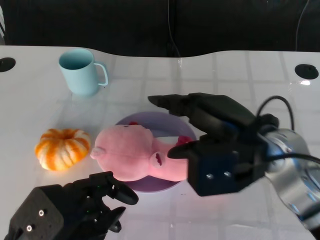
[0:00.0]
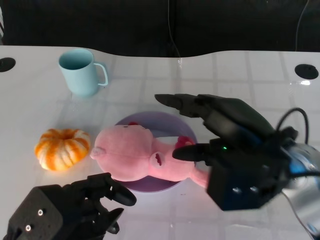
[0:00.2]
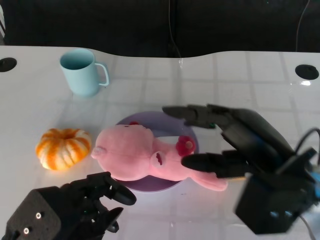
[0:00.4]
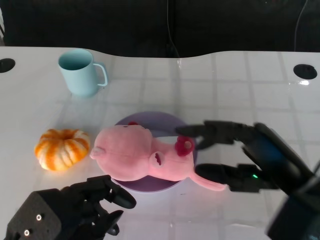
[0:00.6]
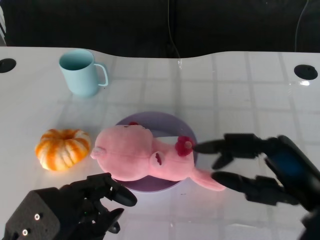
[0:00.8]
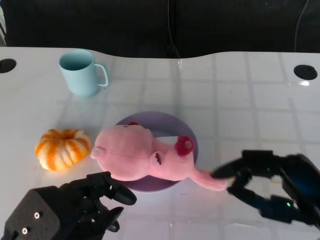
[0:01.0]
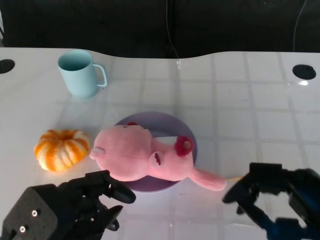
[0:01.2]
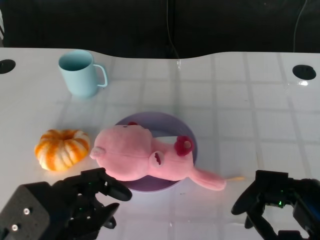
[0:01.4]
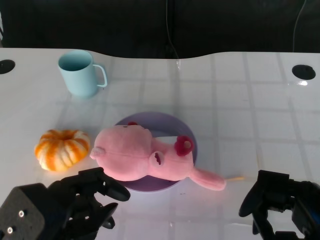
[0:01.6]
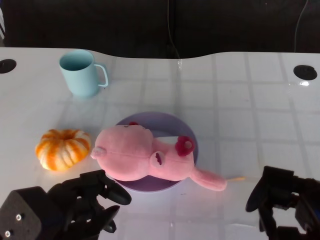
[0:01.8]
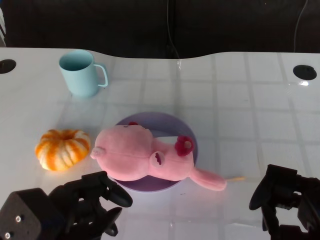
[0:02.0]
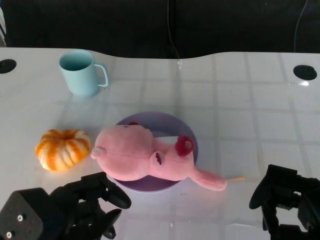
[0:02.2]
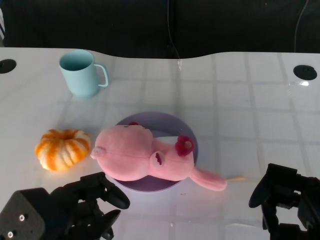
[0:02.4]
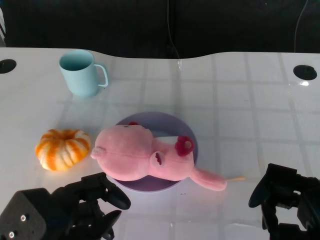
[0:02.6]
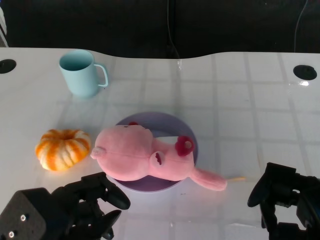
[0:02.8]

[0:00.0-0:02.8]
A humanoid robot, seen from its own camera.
Task of the whole recording: Pick up the doll on the other side of the plate and place it into the plate.
0:00.0 to 0:01.4: The right hand travels backward and to the right by roughly 15 cm.
0:01.4 to 0:02.8: The hands make only small movements.

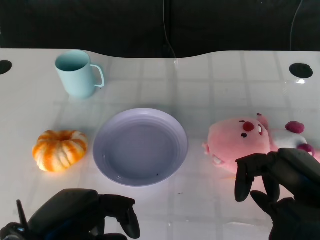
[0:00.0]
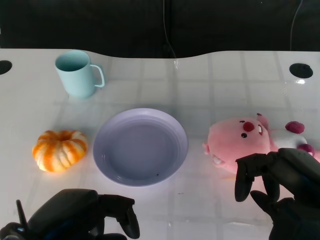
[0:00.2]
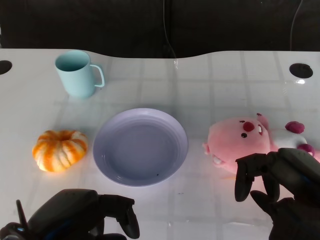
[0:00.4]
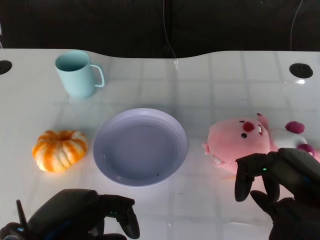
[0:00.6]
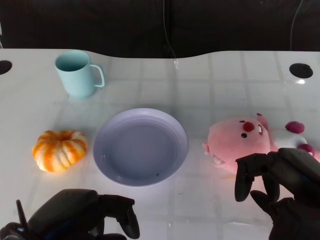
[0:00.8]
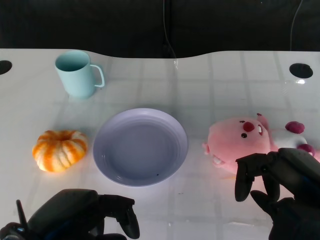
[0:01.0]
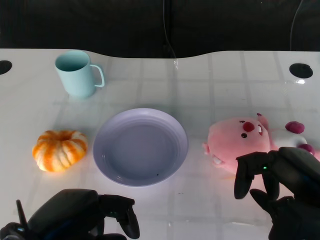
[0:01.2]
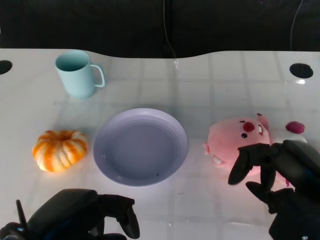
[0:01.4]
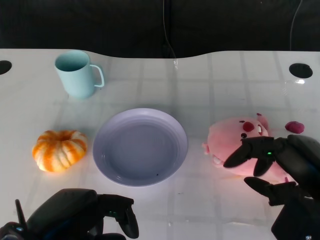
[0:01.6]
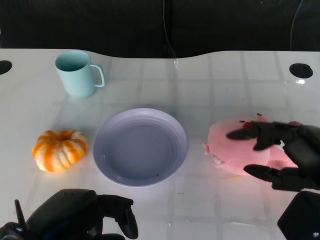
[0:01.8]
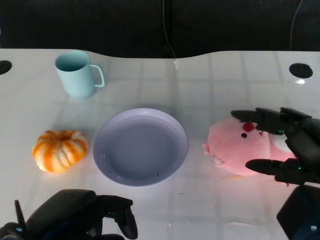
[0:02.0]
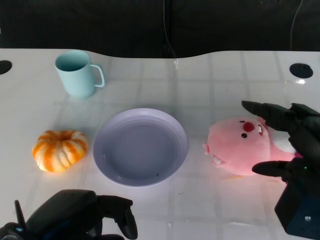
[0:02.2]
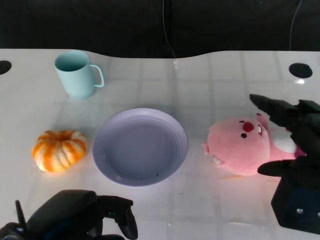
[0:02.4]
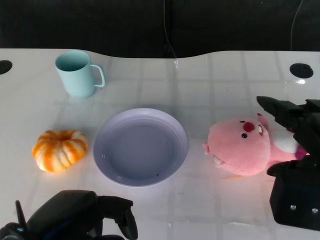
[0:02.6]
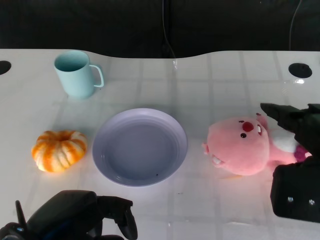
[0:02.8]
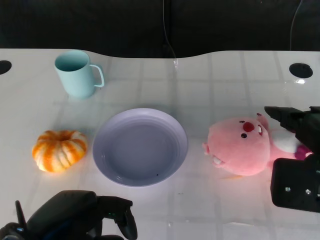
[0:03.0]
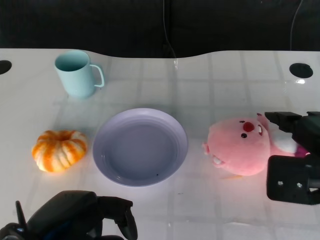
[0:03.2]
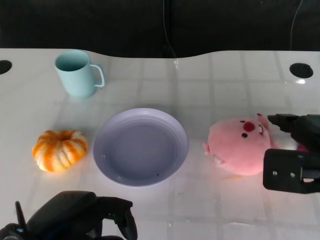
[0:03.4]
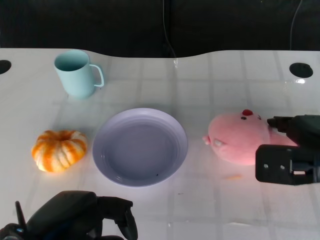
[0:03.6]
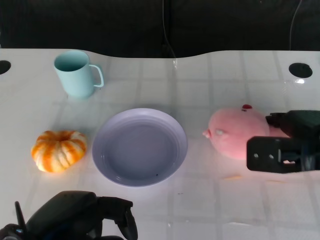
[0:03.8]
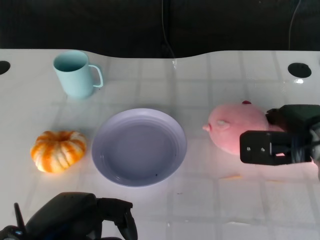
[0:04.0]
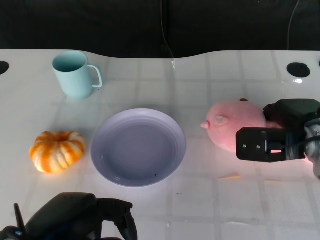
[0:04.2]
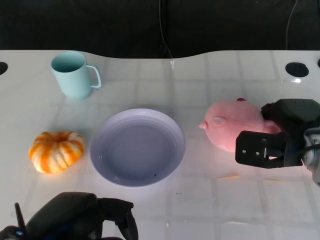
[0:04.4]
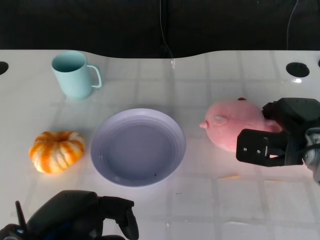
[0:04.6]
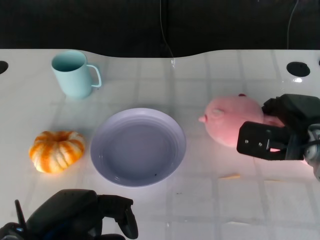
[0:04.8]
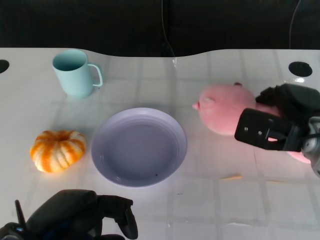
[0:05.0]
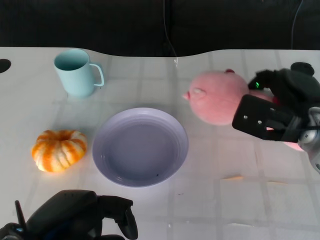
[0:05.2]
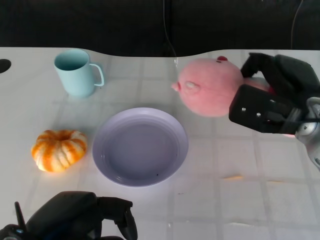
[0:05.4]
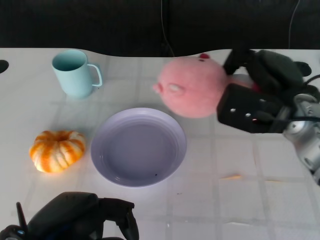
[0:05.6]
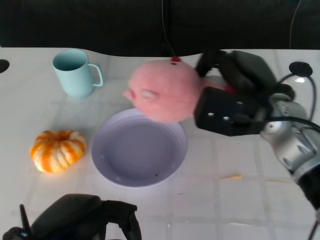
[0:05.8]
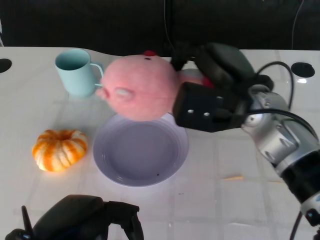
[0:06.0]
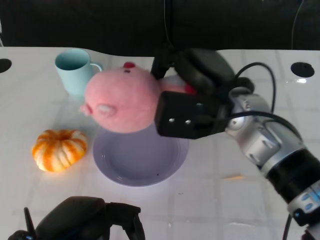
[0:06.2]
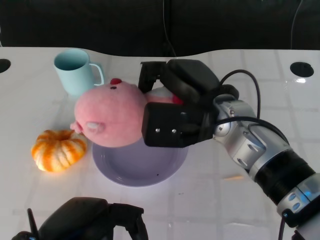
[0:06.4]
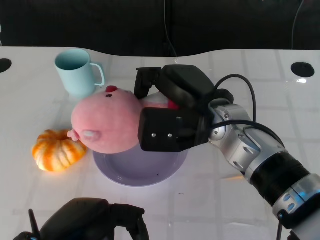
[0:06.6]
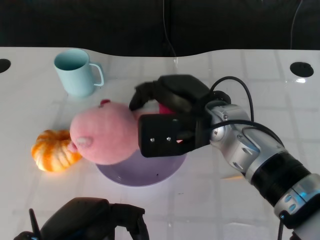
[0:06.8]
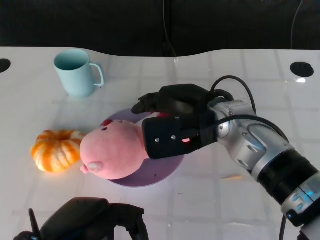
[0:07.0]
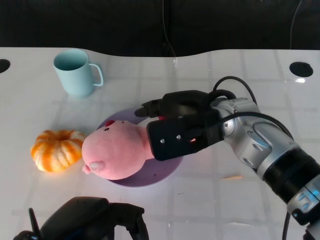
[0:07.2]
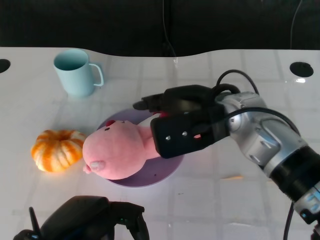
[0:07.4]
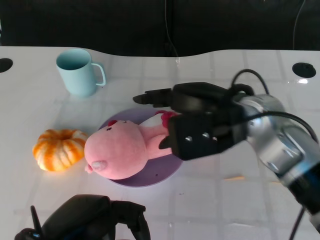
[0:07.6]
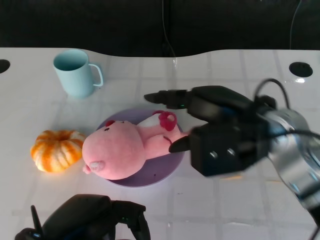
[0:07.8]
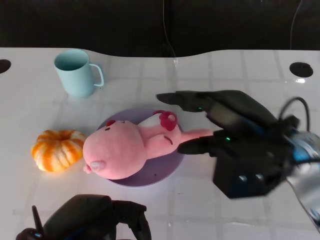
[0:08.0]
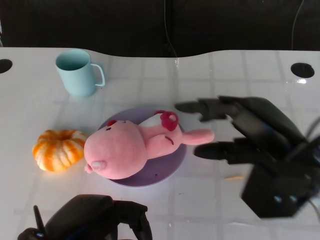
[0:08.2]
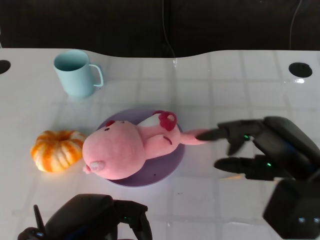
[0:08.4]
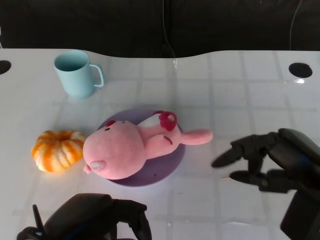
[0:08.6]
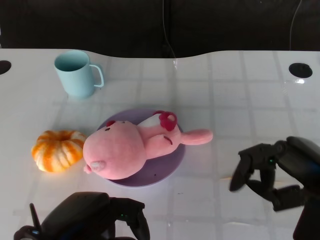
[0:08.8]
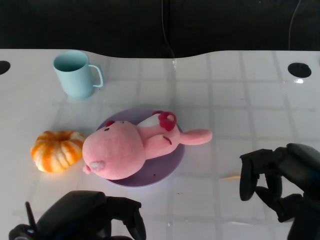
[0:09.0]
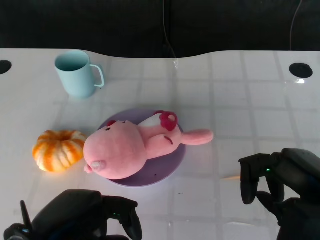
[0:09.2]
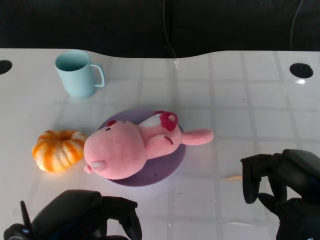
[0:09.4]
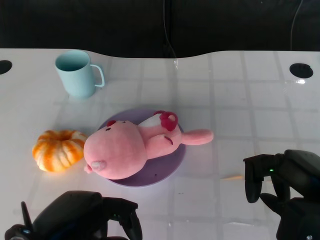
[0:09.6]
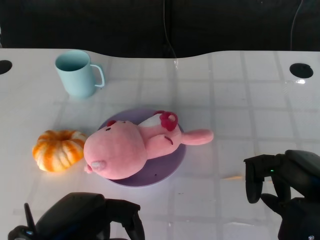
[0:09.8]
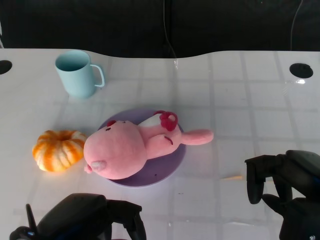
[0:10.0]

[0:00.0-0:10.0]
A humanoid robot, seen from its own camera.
Task of the whole recording: Pick up the doll on the other side of the plate and place it into the plate.
Step, 0:01.0 to 0:05.6: Grasp the pink doll with the right gripper.
Step, 0:05.8 to 0:07.6: Place the pink doll into the plate with the right gripper.
0:01.4 to 0:02.8: The right hand moves approximately 5 cm.
0:02.8 to 0:04.2: The right hand shifts about 15 cm forward and downward.
0:04.2 to 0:05.8: The right hand travels to the left and upward by approximately 10 cm.
0:05.8 to 0:07.2: The right hand shifts about 5 cm to the left.
0:07.2 to 0:08.6: The right hand goes roughly 20 cm to the right and backward.
0:08.6 to 0:10.0: The hands move only a little.

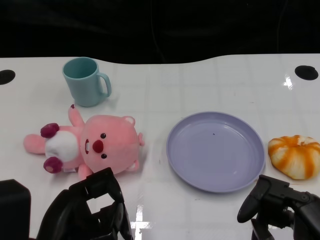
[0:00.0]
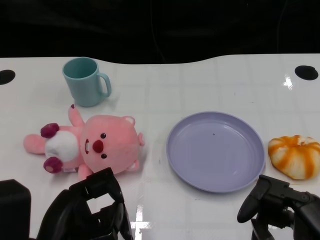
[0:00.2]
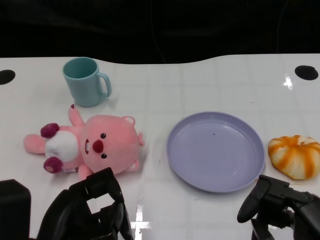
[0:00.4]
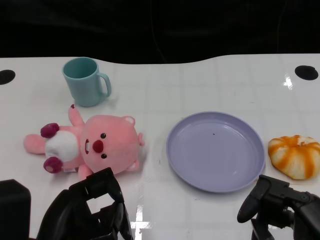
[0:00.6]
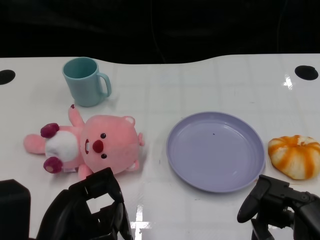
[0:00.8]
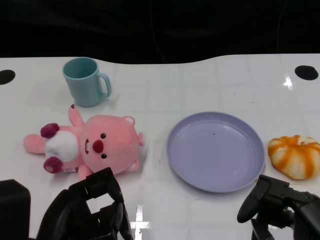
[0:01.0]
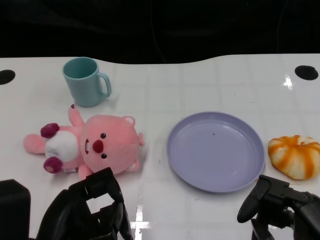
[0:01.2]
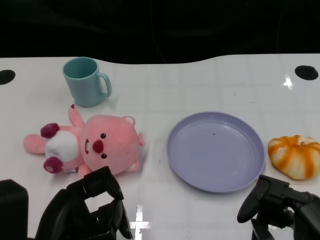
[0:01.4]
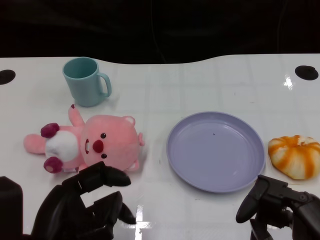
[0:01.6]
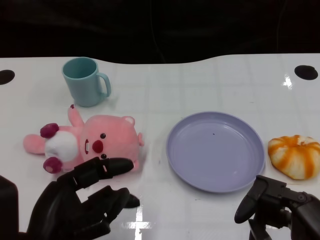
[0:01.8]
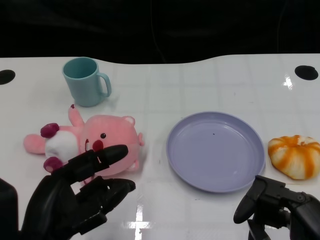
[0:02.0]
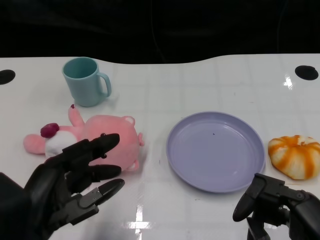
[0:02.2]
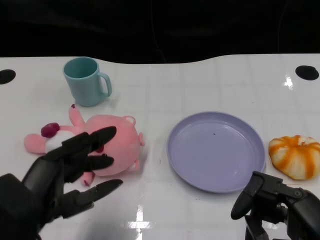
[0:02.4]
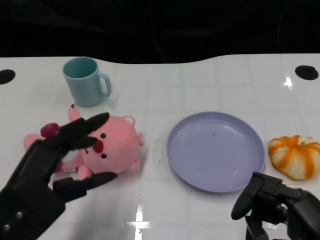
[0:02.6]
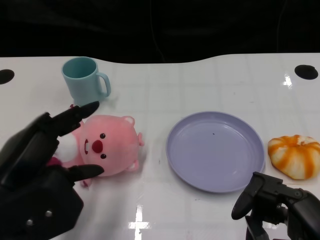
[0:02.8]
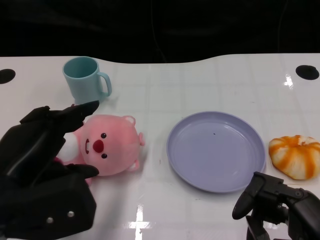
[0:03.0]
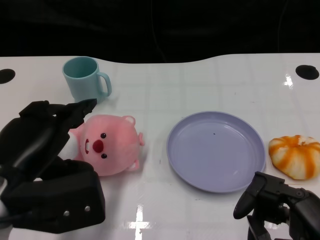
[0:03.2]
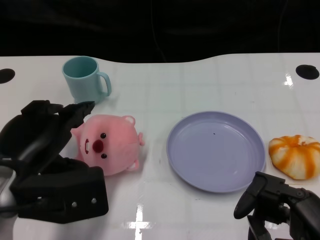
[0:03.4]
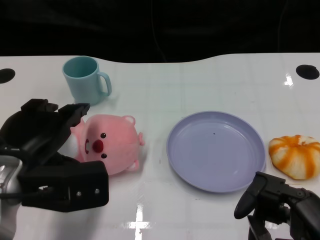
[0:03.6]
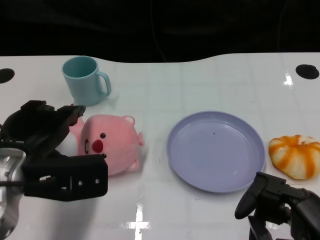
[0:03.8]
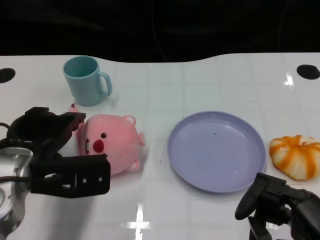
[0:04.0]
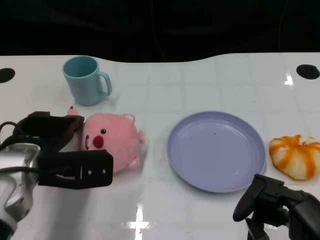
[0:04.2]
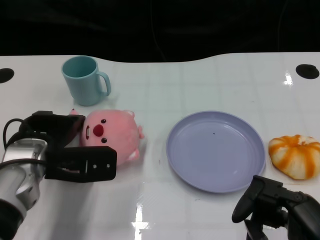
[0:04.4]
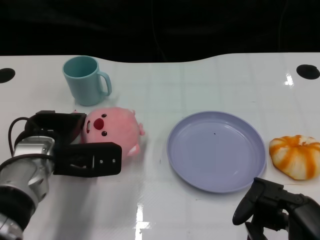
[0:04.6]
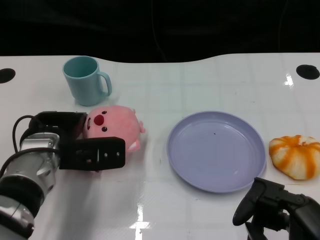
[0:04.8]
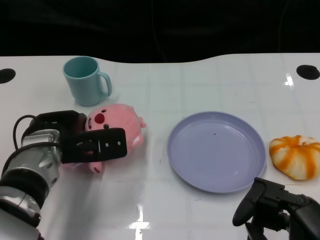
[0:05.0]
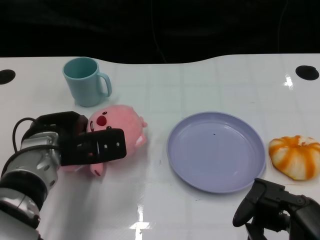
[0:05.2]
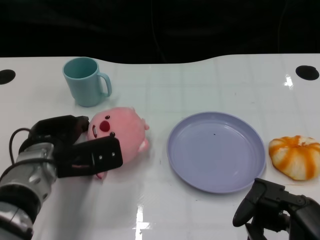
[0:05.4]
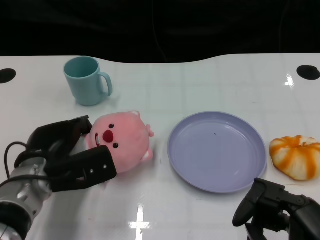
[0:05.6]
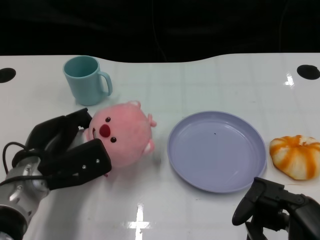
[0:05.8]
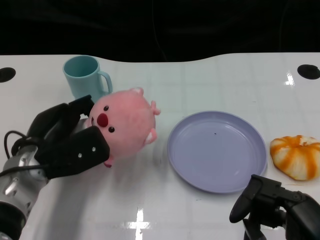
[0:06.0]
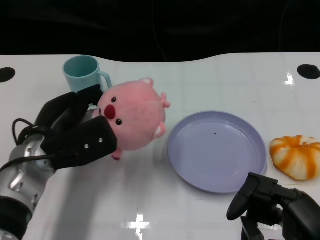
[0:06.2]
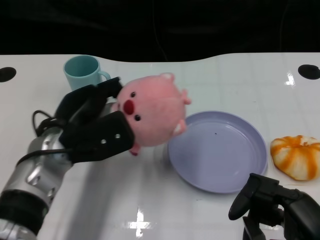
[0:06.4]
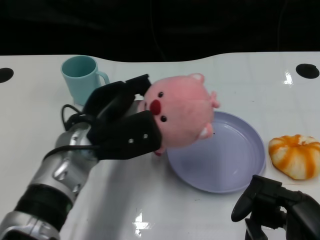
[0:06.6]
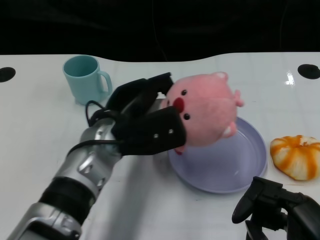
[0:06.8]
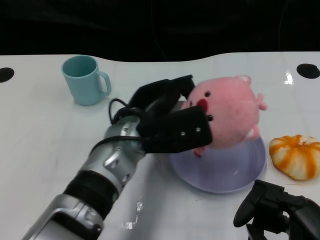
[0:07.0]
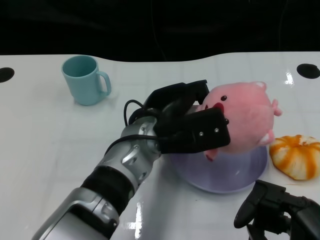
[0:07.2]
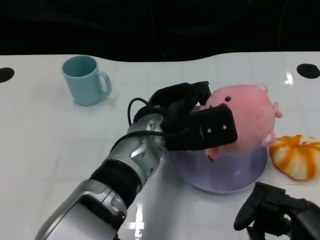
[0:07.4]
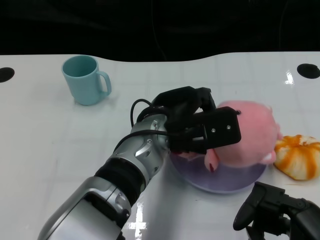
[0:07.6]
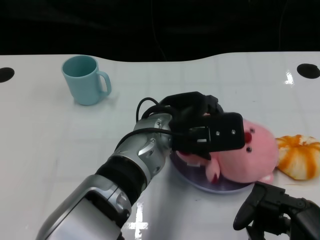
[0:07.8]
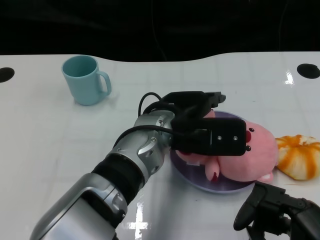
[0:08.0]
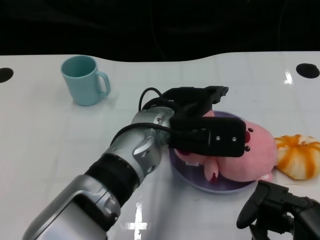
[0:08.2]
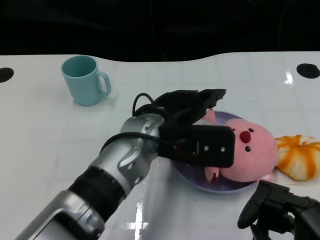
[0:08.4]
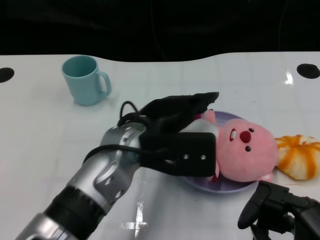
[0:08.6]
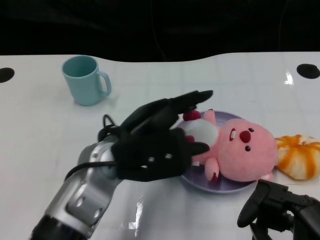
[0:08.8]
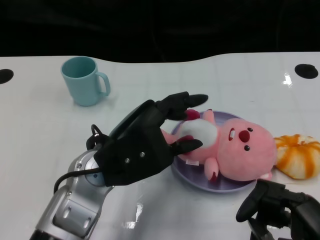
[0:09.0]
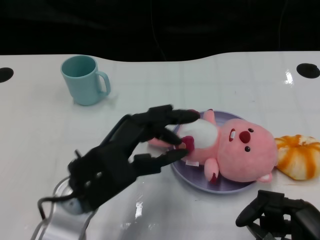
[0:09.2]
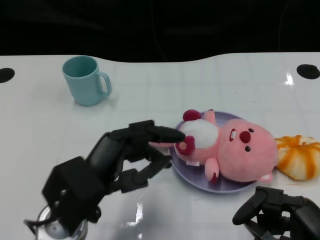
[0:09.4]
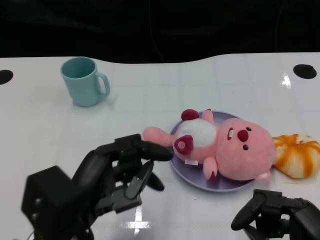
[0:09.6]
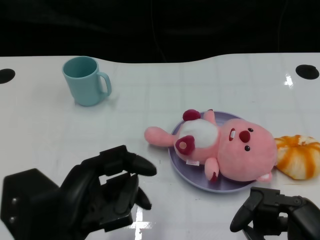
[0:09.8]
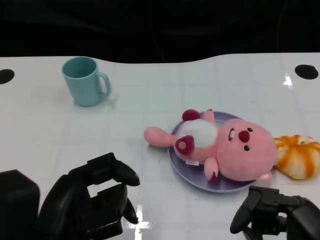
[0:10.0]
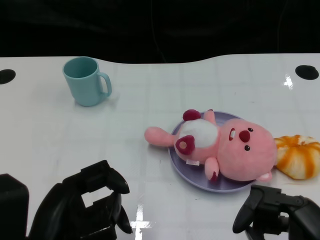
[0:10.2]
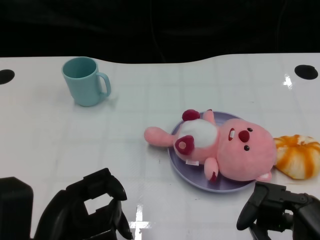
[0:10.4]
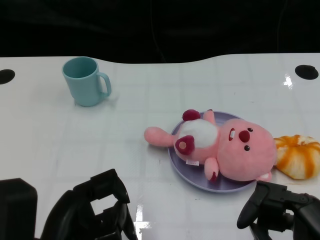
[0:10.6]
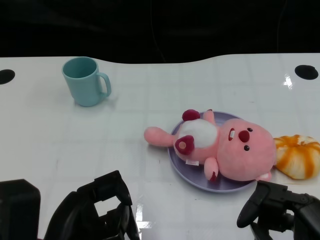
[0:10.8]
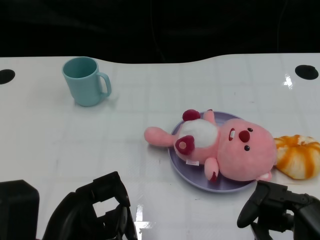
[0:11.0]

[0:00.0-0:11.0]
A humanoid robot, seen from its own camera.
Task of the whole recording: Pick up the doll on one side of the plate and place it into the plate.
Step, 0:01.4 to 0:05.6: Grasp the pink doll with the left gripper.
Step, 0:05.8 to 0:08.2: Place the pink doll into the plate with the left gripper.
0:01.6 to 0:03.2: The left hand is displaced upward and forward by approximately 10 cm.
0:03.2 to 0:04.8: The left hand shifts some 15 cm forward and downward.
0:06.2 to 0:07.8: The left hand shifts roughly 15 cm to the right.
0:07.8 to 0:09.4: The left hand heads to the left and backward, covering some 15 cm; the right hand ends up about 5 cm from where it was.
0:09.4 to 0:11.0: The left hand heads backward, covering some 5 cm.
